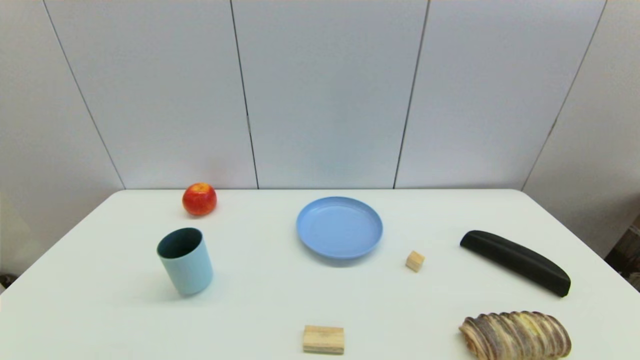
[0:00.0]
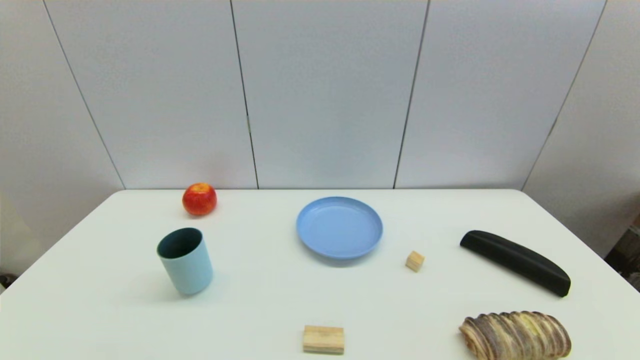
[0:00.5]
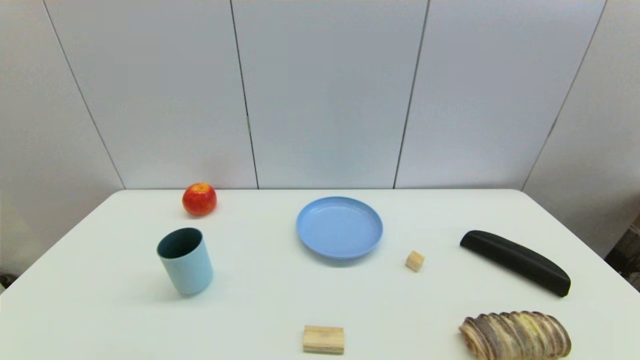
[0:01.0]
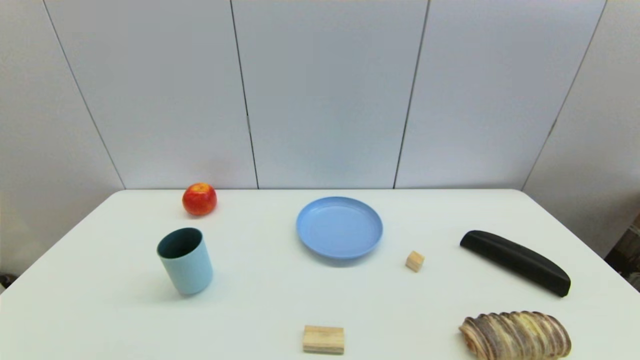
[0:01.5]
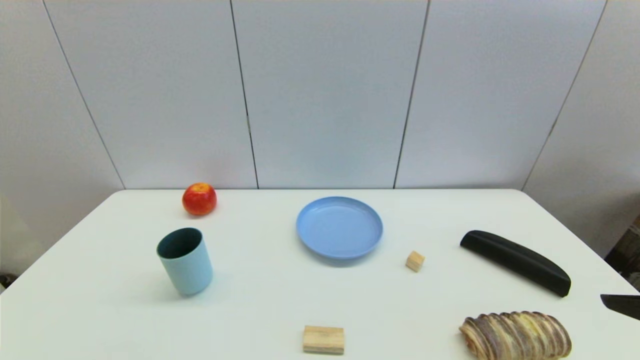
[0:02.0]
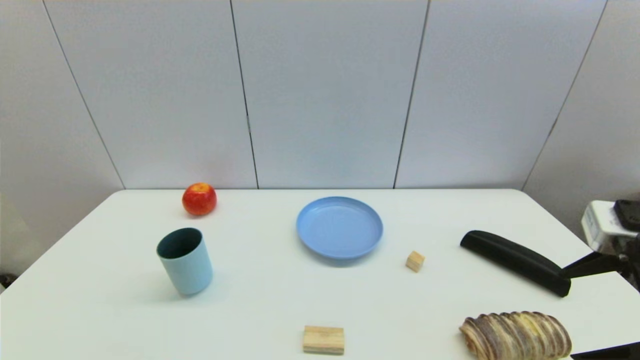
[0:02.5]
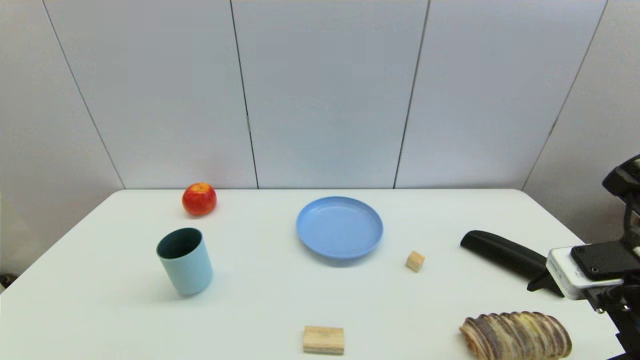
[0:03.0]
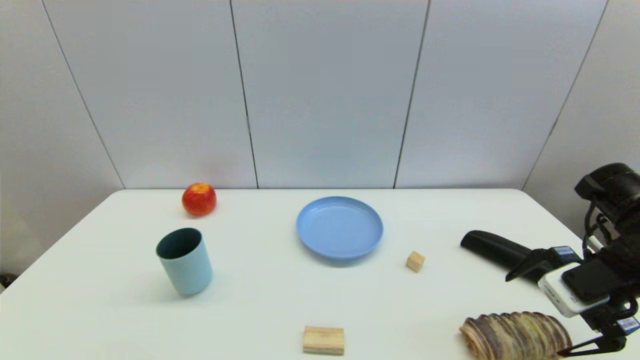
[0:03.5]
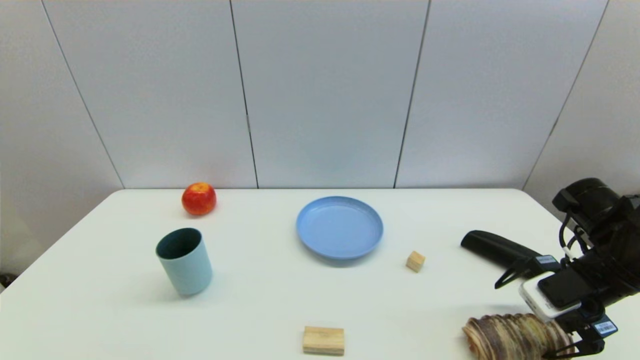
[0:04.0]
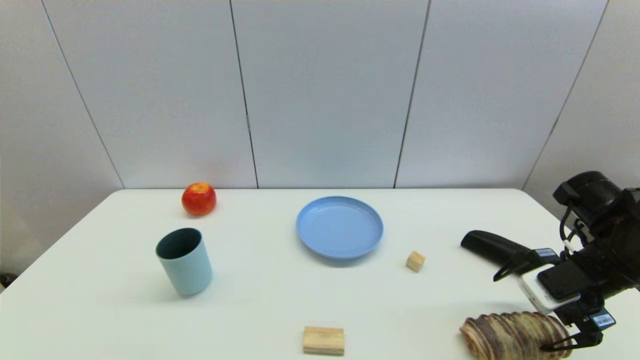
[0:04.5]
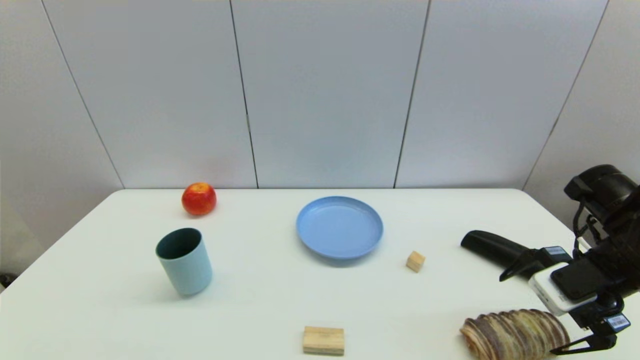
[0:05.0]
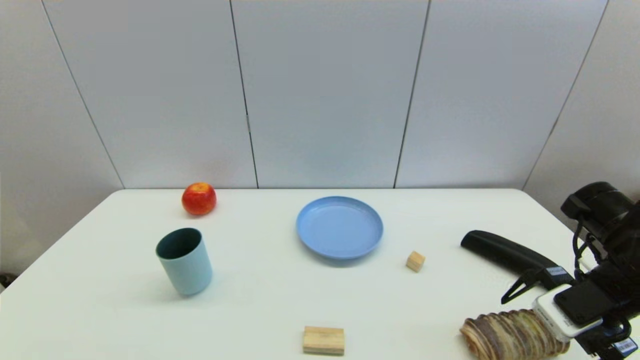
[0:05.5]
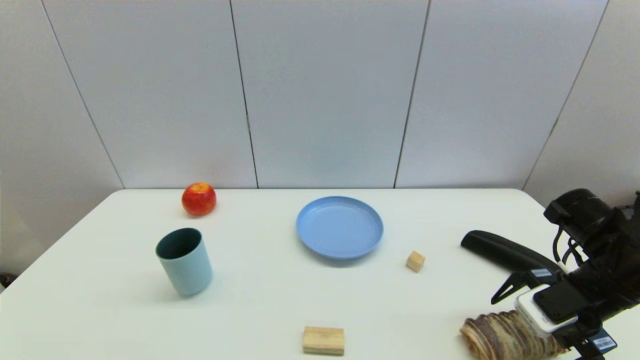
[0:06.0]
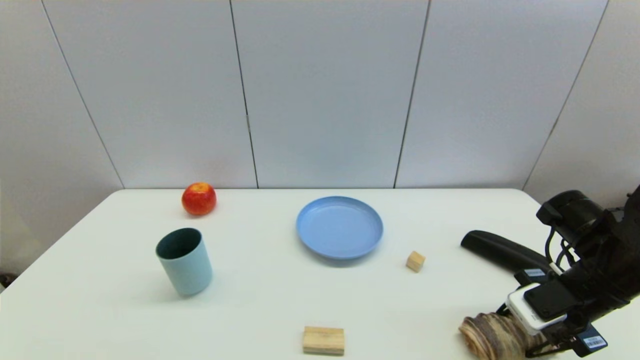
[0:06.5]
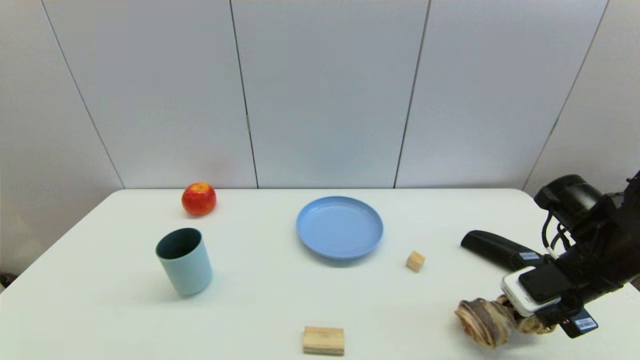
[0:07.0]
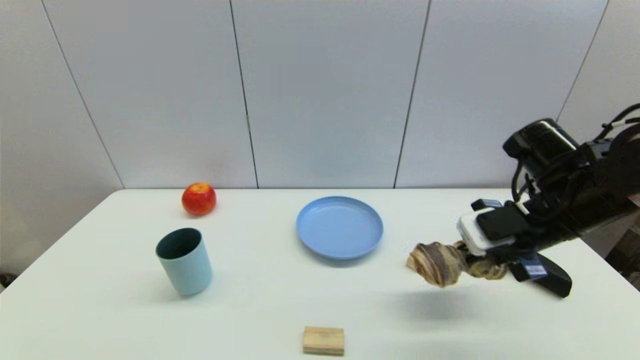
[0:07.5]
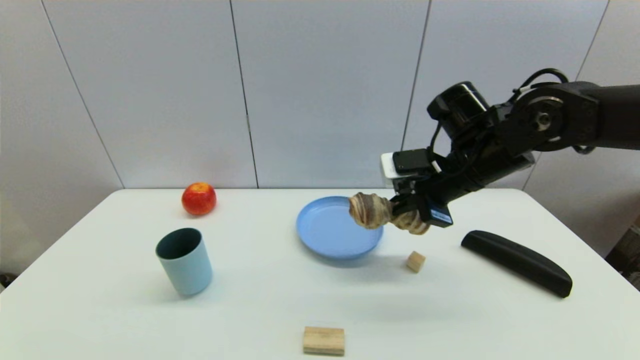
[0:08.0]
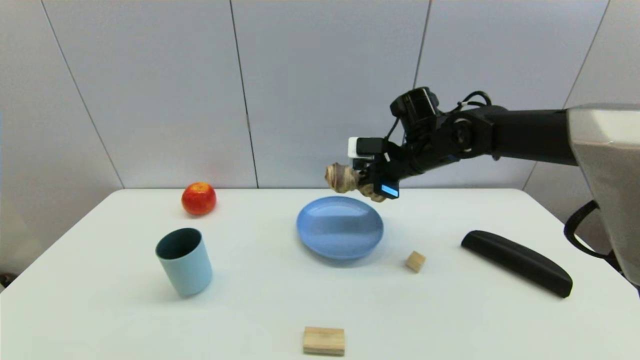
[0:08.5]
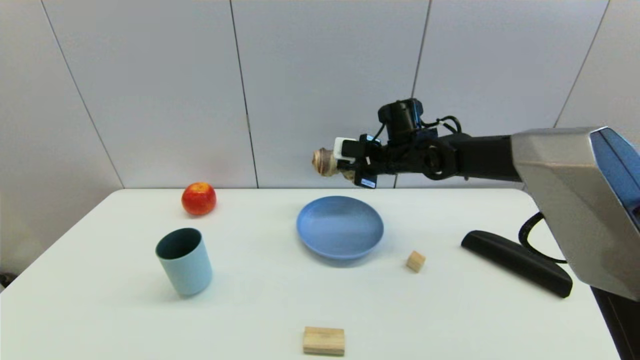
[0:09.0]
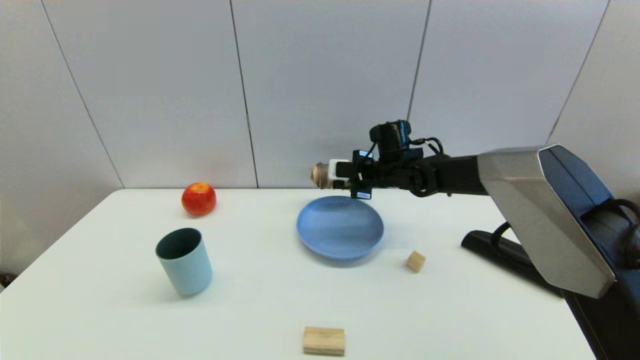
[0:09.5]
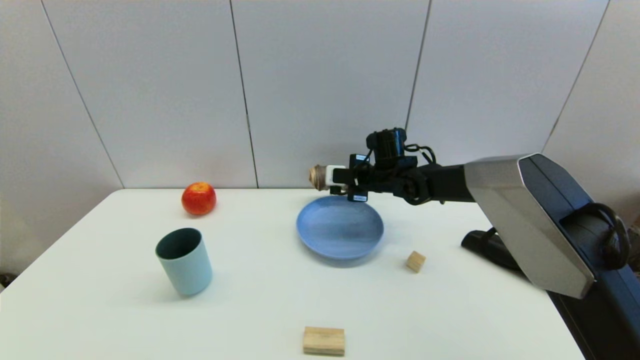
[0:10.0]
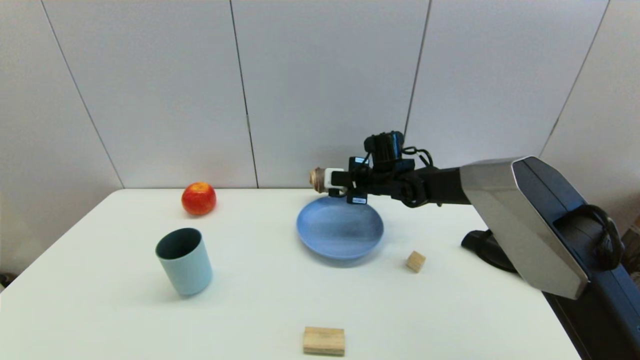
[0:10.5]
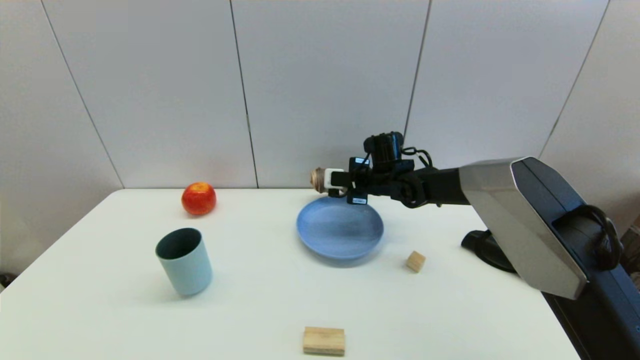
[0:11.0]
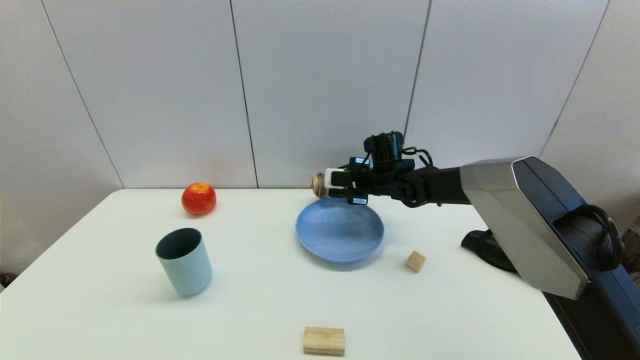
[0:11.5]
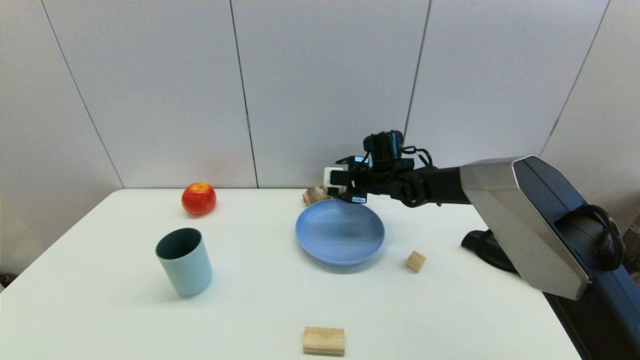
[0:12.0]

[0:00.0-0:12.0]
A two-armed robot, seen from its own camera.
Step, 0:02.0 to 0:06.5: Grasp the long bread with right gripper.
0:02.0 to 0:04.0: The right gripper heads forward and downward, covering about 20 cm.
0:04.0 to 0:06.0: The grippers move only a little.
0:06.0 to 0:08.0: The right gripper is displaced to the left, forward and upward by approximately 20 cm, and closes.
0:08.0 to 0:10.0: The right gripper heads forward, downward and to the left, covering approximately 20 cm.
0:10.0 to 0:12.0: The right gripper opens up.

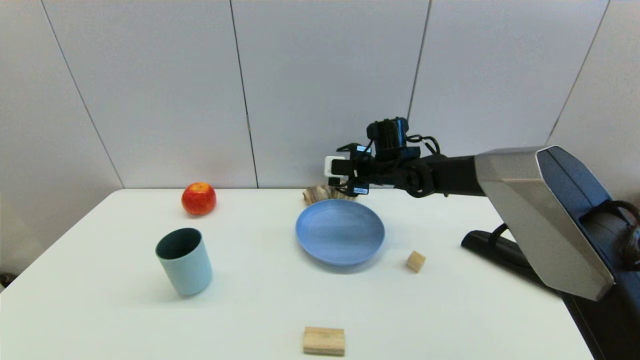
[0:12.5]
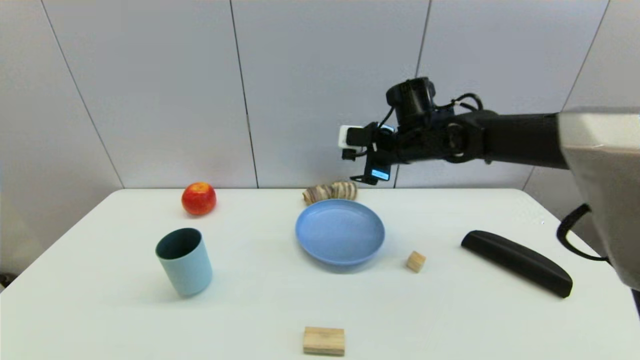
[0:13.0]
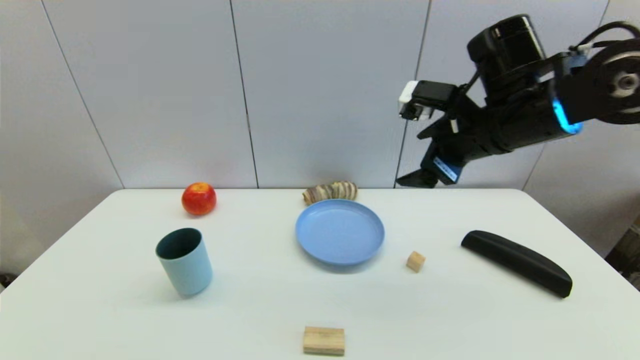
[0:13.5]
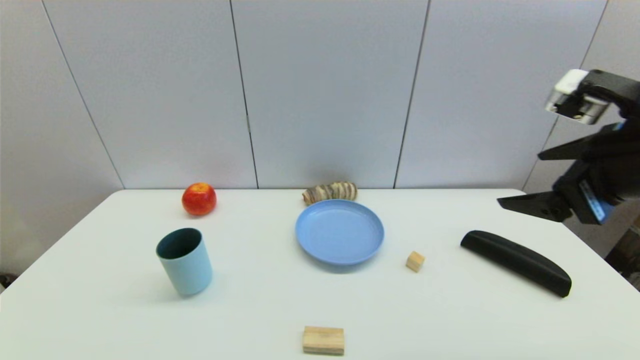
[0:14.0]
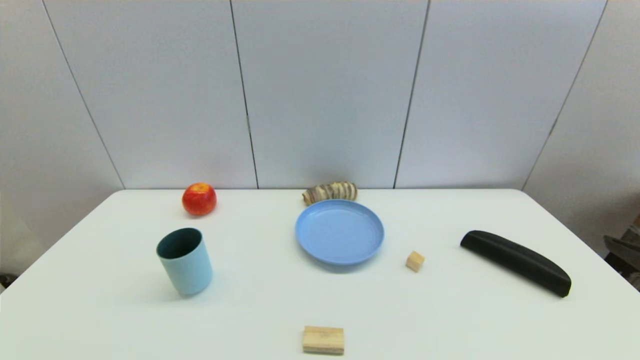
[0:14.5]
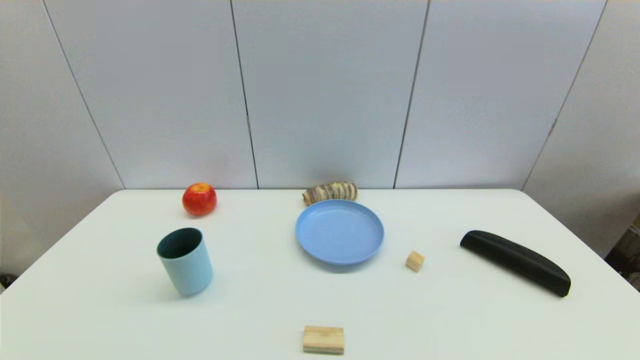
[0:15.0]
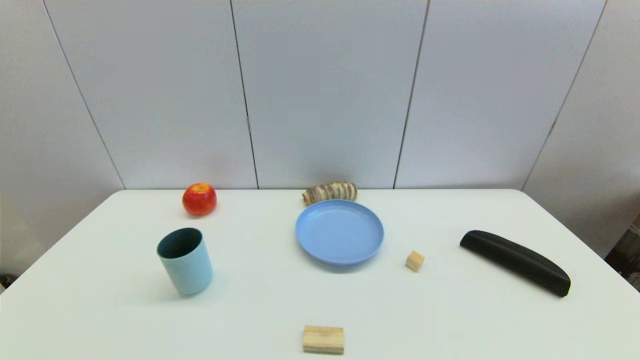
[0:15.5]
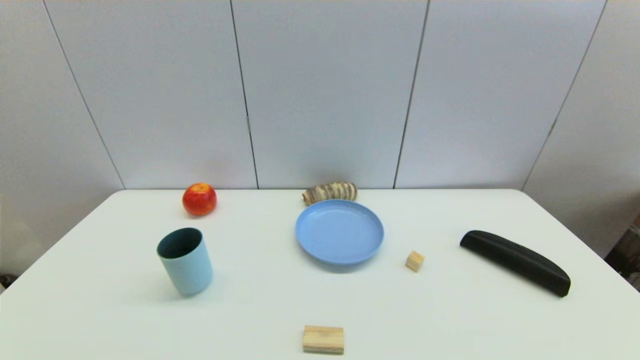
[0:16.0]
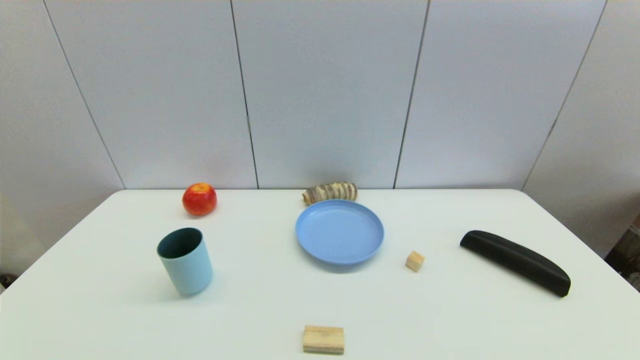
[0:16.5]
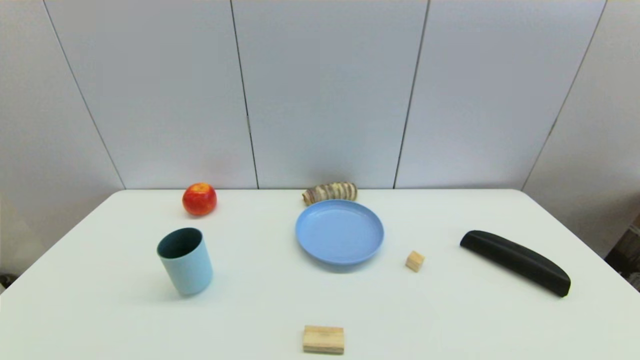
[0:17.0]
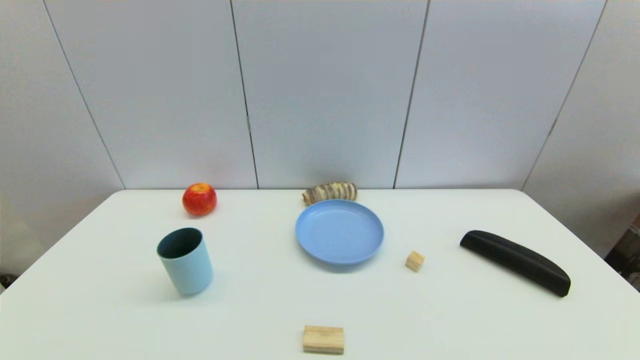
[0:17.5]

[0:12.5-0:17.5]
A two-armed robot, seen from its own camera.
0:12.5 to 0:15.0: The right gripper heads backward and to the right, covering about 50 cm.

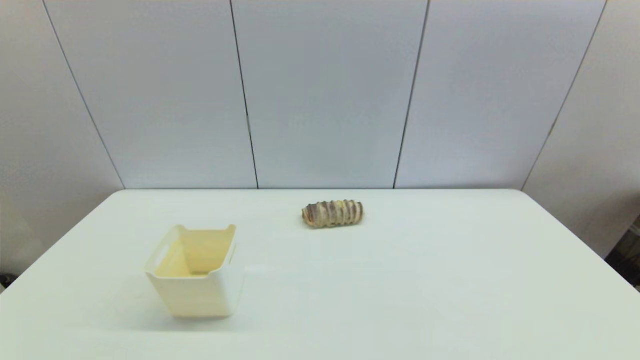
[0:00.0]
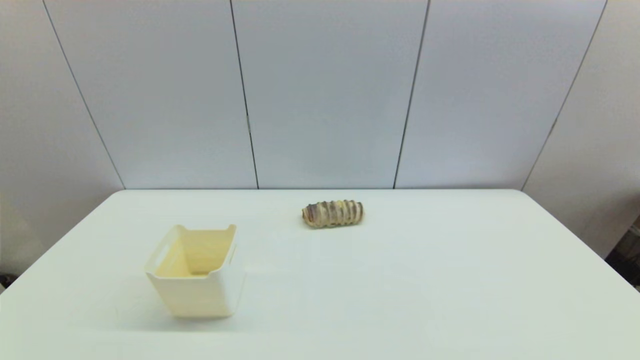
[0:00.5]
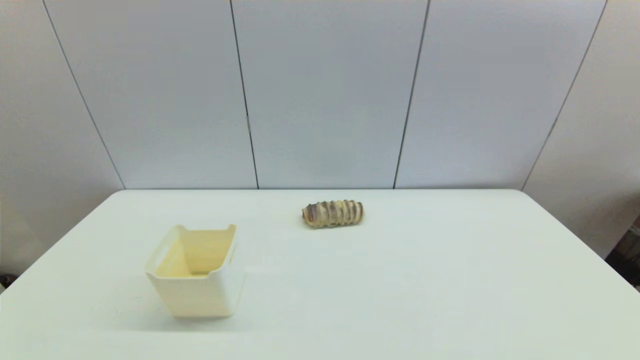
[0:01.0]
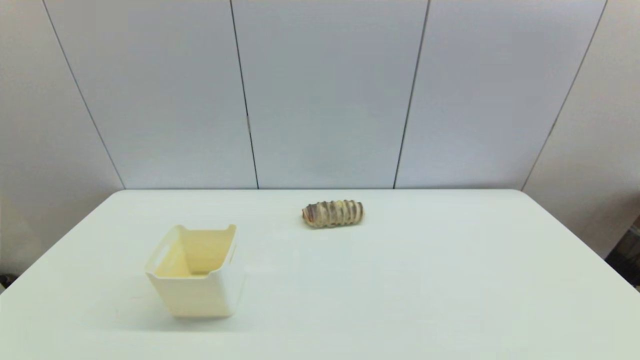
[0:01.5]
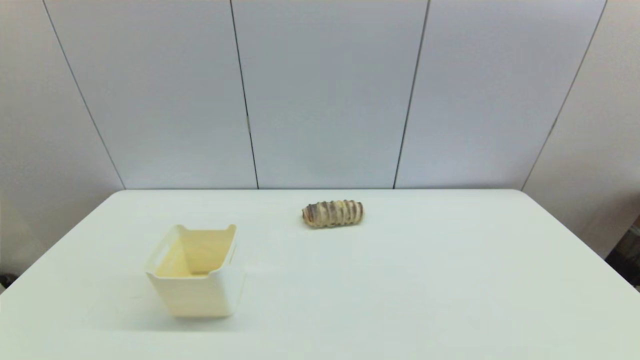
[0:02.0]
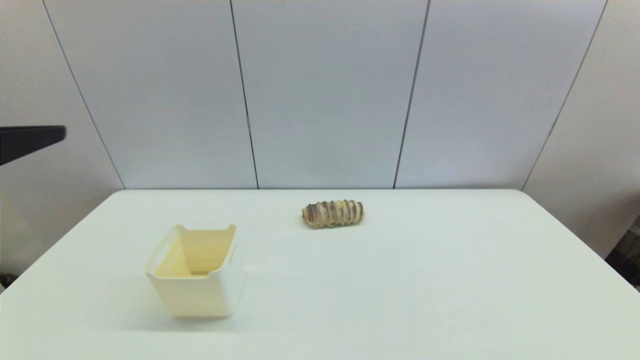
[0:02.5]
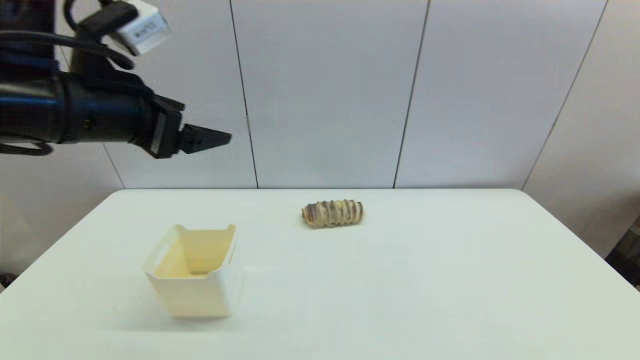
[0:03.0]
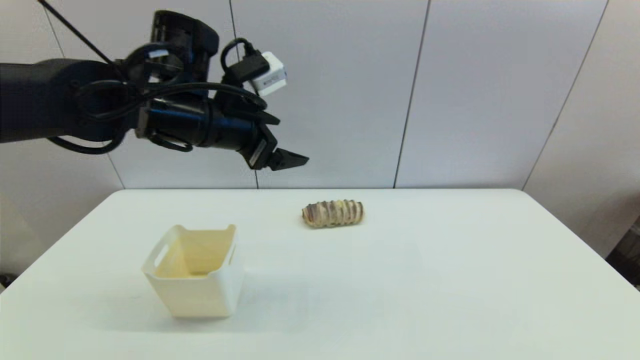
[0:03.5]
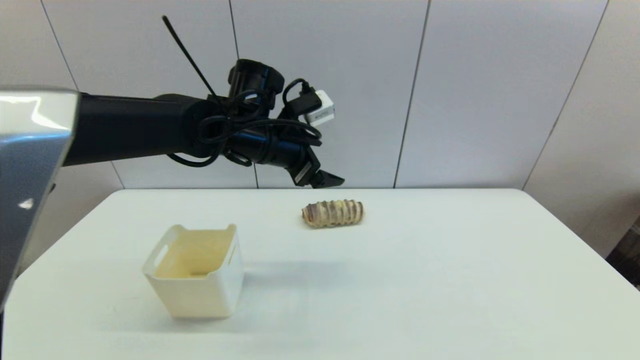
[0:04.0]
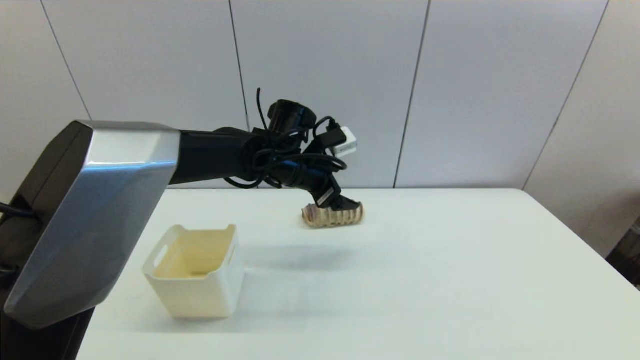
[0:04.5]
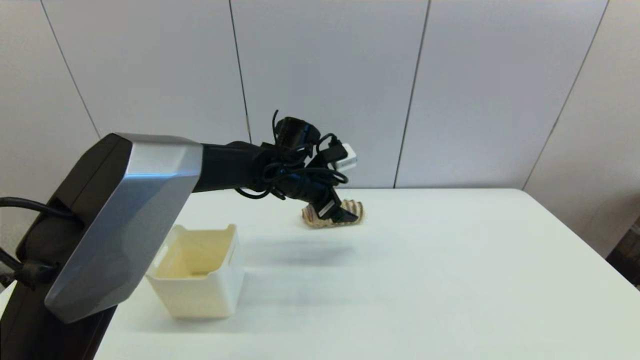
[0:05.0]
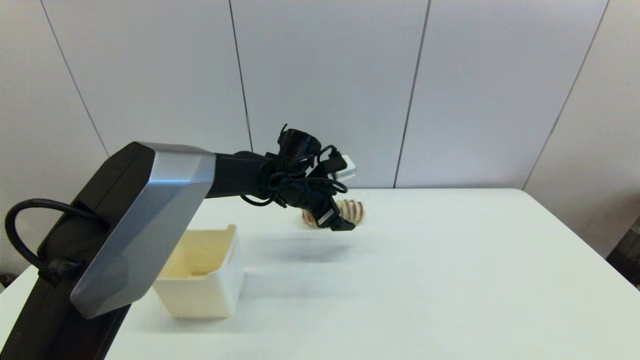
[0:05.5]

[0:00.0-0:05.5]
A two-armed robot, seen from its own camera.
0:02.0 to 0:03.5: The left gripper travels forward and to the right by approximately 40 cm.
0:03.5 to 0:05.5: The left gripper shifts roughly 20 cm downward, to the right and forward.
